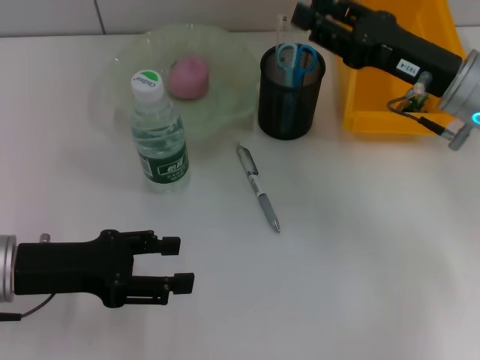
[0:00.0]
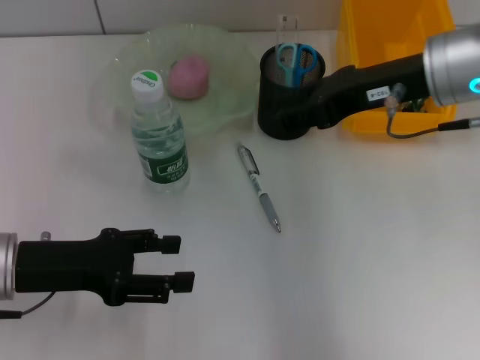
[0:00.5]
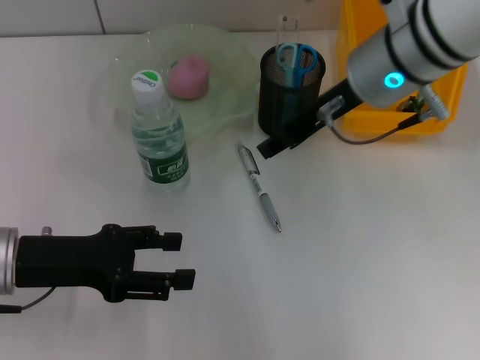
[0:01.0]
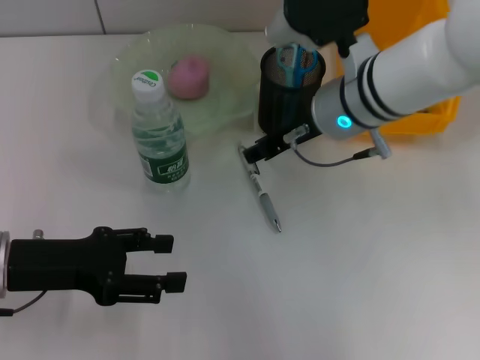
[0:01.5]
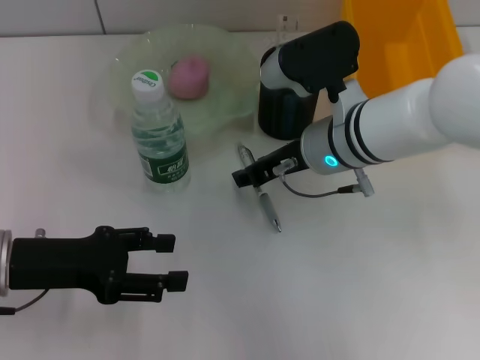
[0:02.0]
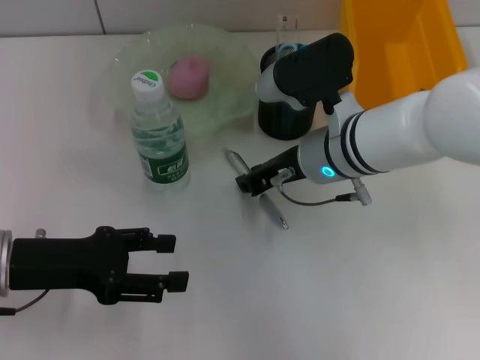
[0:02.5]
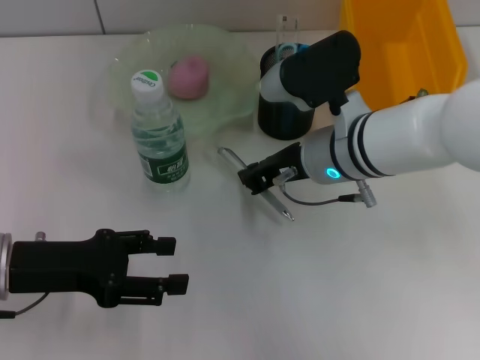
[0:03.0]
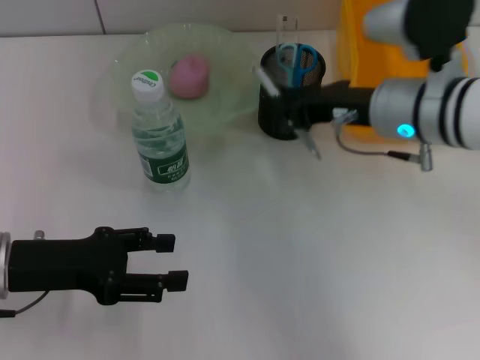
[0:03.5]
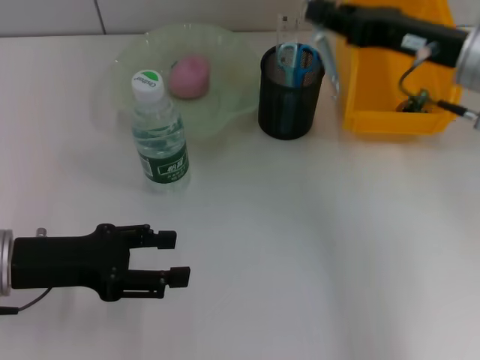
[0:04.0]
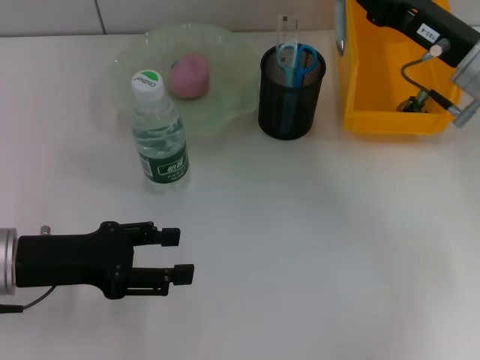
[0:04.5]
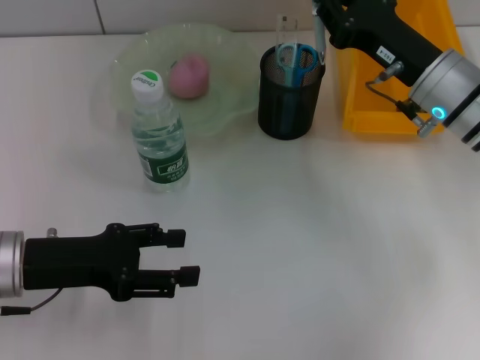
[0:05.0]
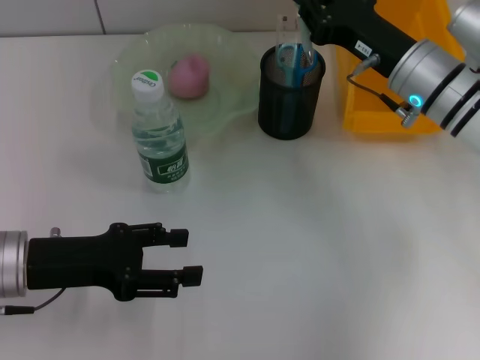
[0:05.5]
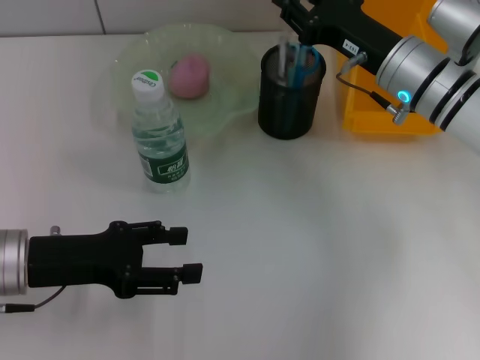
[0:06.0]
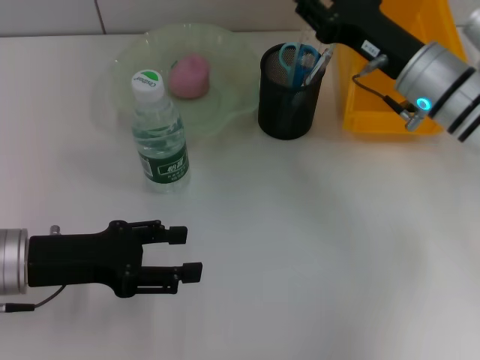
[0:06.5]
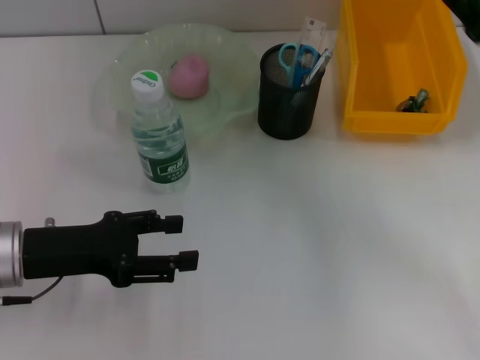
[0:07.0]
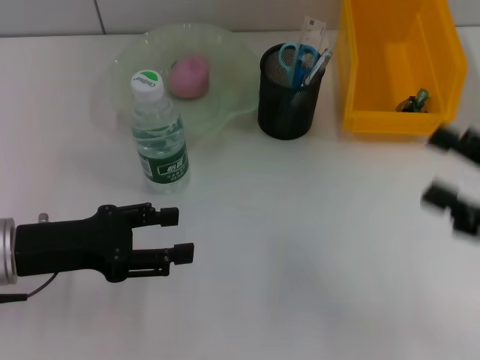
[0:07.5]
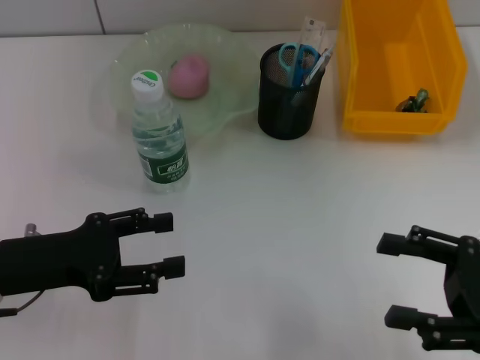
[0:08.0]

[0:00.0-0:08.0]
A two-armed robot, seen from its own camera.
Step, 0:00.0 to 0:06.5: Place the gray spring-action pen into the pen holder with the right hand.
0:00.0 to 0:02.0: The right gripper shifts approximately 15 cm to the left.
0:02.0 to 0:04.0: The right gripper travels to the right and upward by approximately 15 cm, and closes up.
0:04.0 to 0:06.0: The right gripper shifts roughly 10 cm downward and to the left.
0:06.0 to 0:08.0: The right gripper travels backward and to the right by approximately 25 cm, and opens its fingers.
